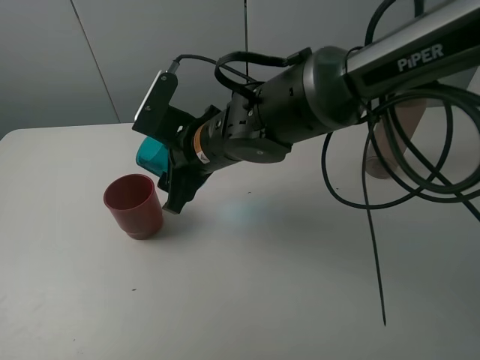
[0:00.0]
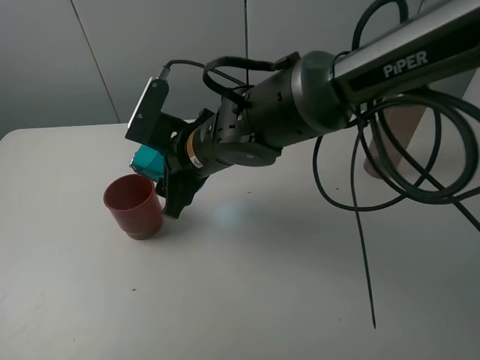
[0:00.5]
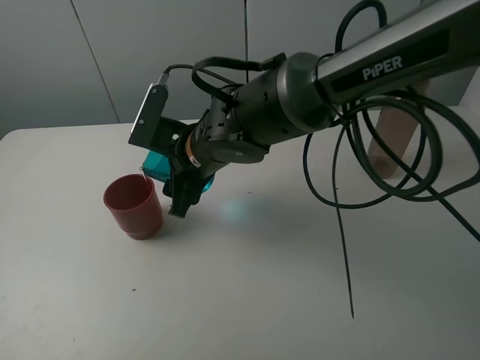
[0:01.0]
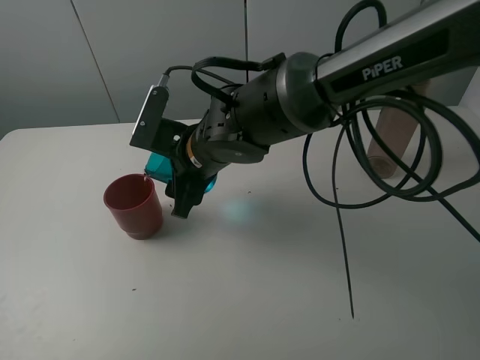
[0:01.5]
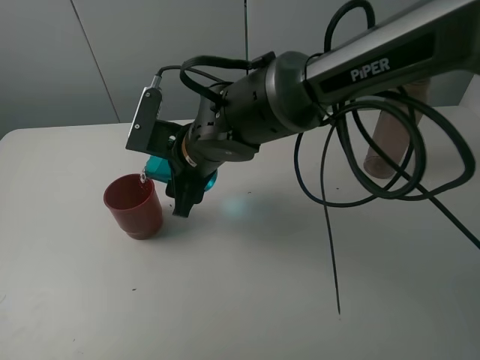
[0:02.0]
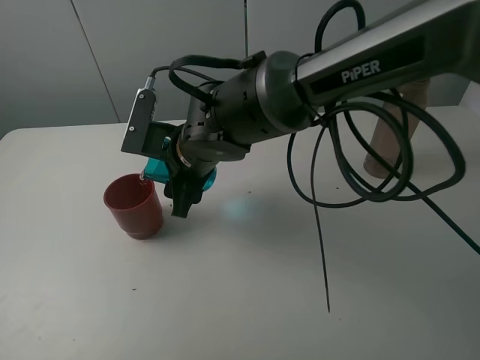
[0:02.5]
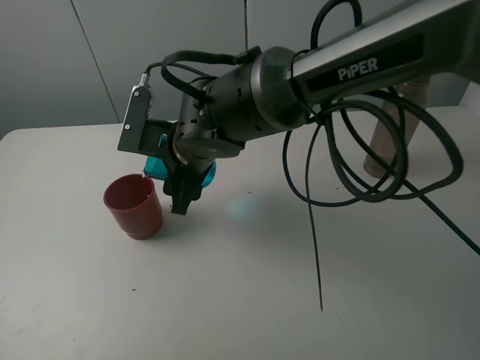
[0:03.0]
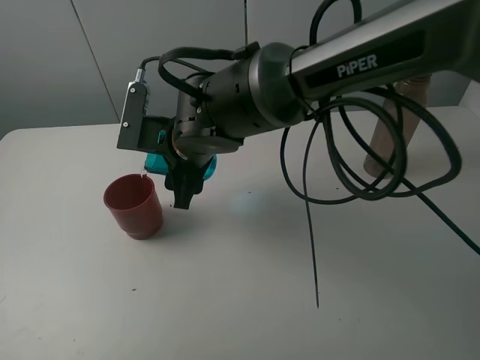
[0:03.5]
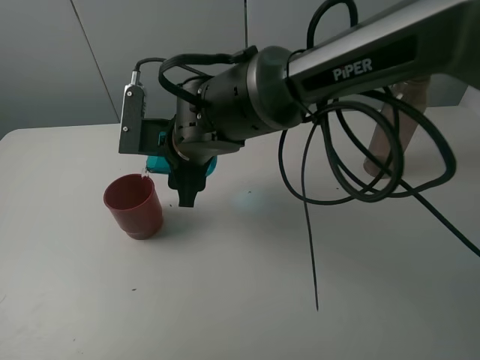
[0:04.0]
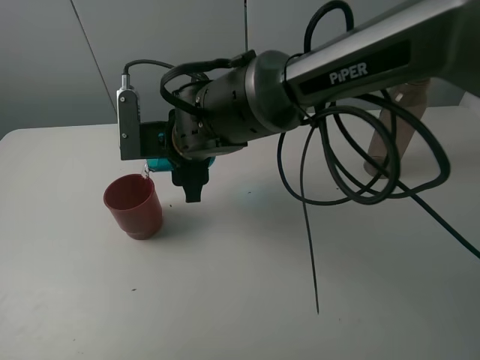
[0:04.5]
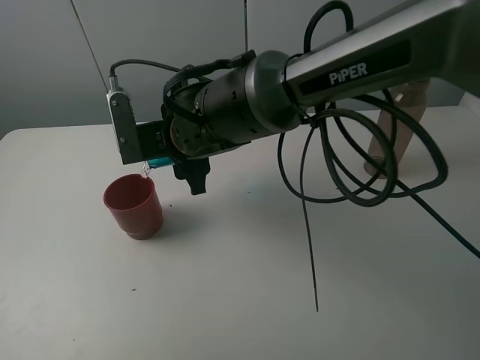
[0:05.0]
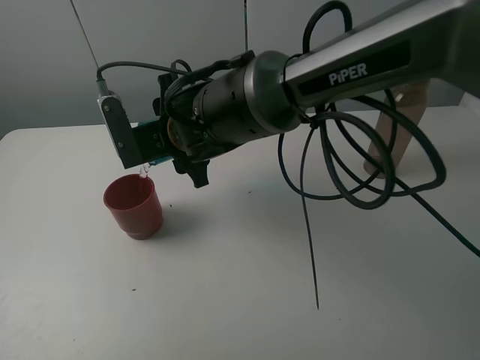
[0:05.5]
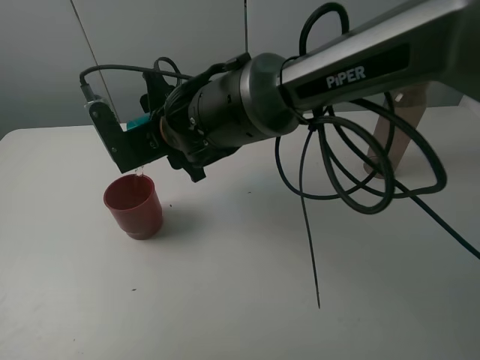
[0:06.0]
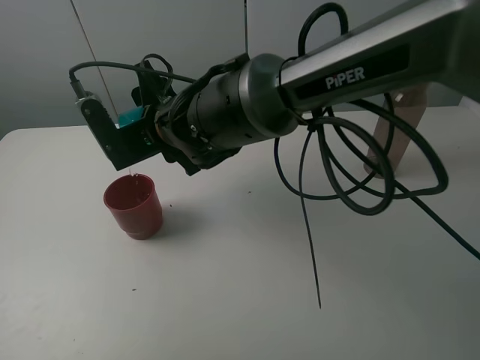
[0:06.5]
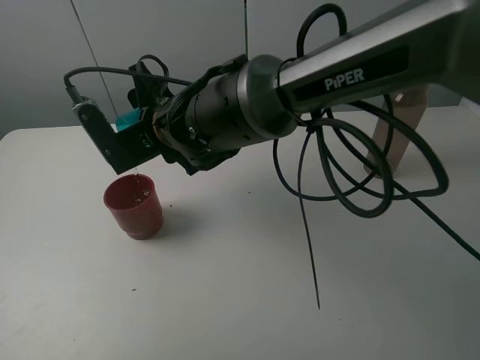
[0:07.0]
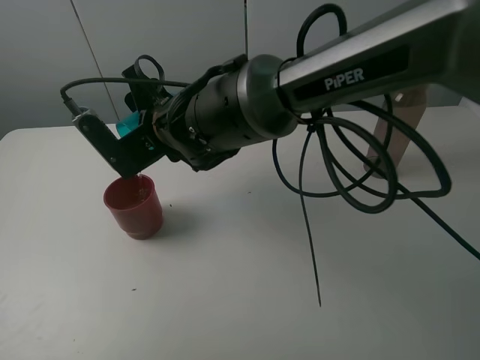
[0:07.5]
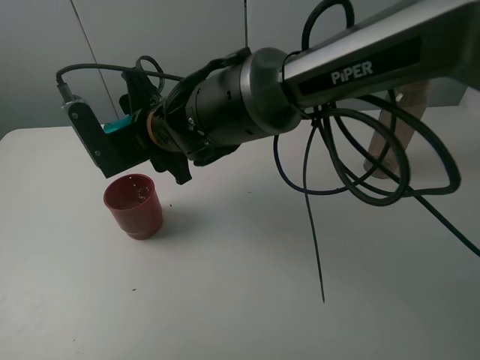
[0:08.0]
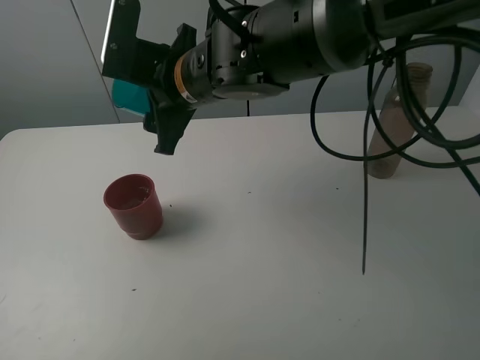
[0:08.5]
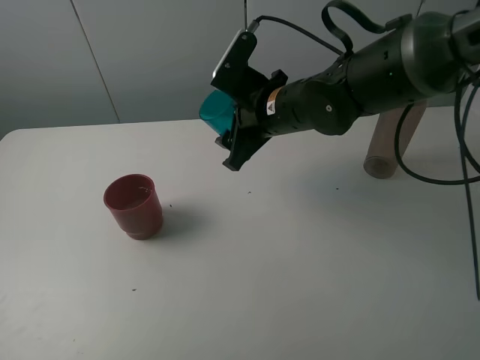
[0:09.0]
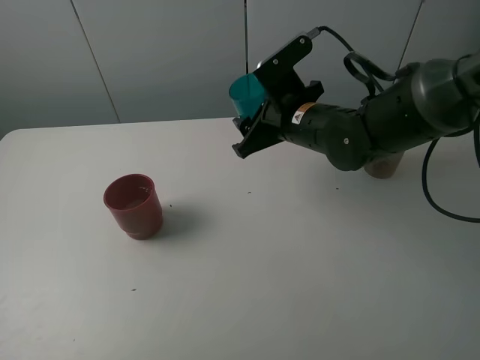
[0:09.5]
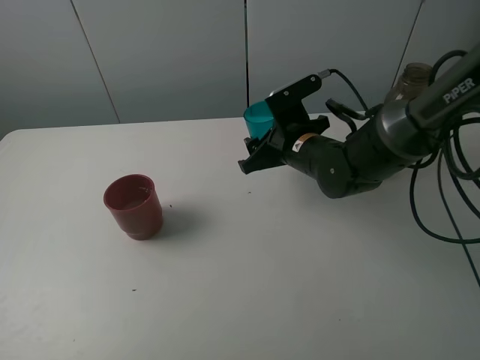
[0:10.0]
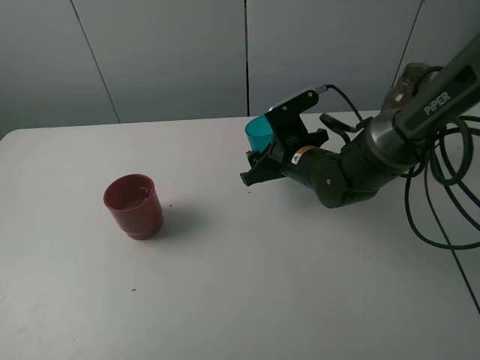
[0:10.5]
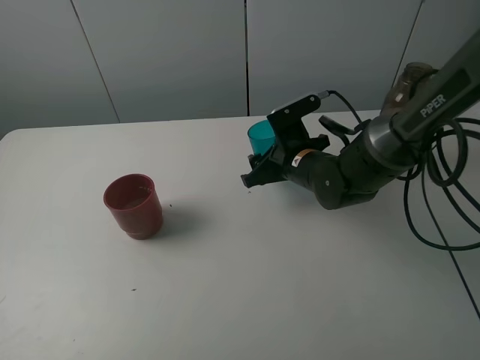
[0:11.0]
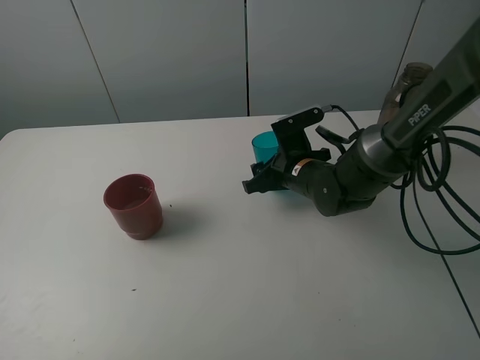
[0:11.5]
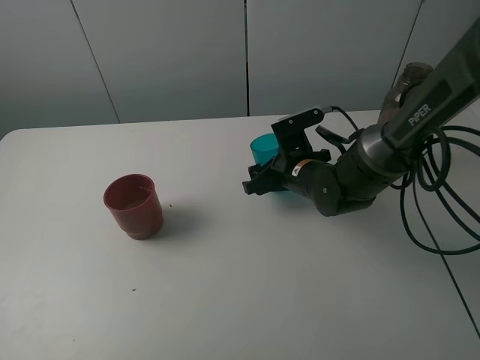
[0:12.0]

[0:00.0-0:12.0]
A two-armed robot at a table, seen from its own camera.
Task of the whole recording: pick up the bottle and pour water into the cup, then pick up the cup containing water and pour it into another cup.
Step, 0:00.0 to 0:08.0: Pour water from blue cup to red cup with the right gripper.
0:00.0 to 0:02.0: The grippers stay close to where they were, moving slightly.
0:02.0 to 0:04.0: The grippers move only a little.
0:06.0 to 0:08.0: The grippers make only small movements.
0:08.0 to 0:10.0: The right gripper moves to the right and downward, some 20 cm.
0:10.0 to 0:12.0: The right gripper opens.

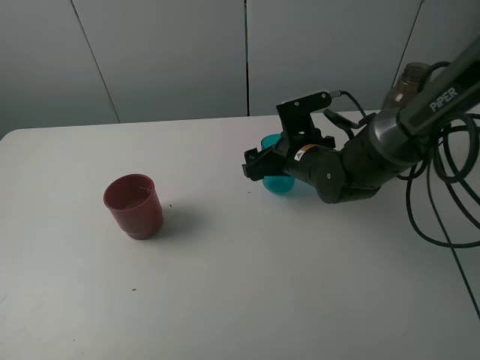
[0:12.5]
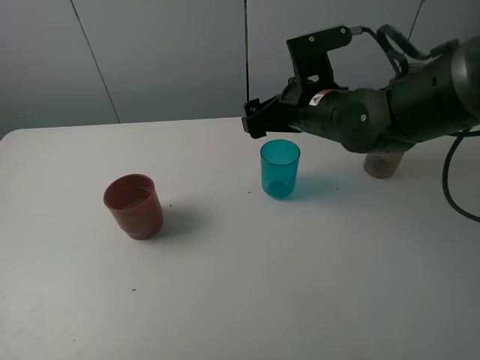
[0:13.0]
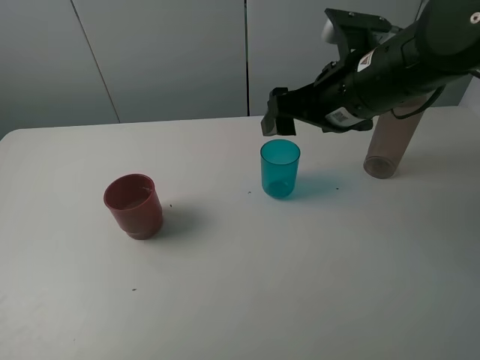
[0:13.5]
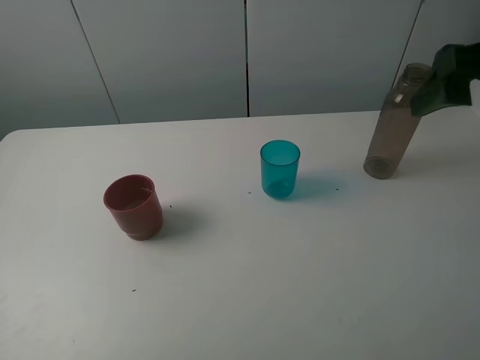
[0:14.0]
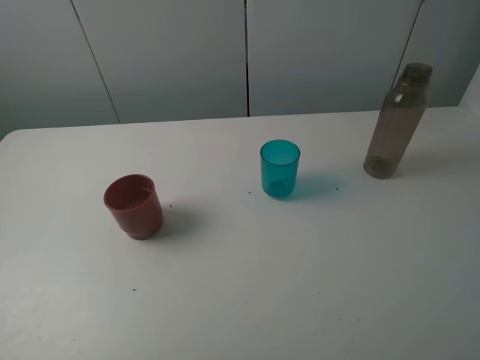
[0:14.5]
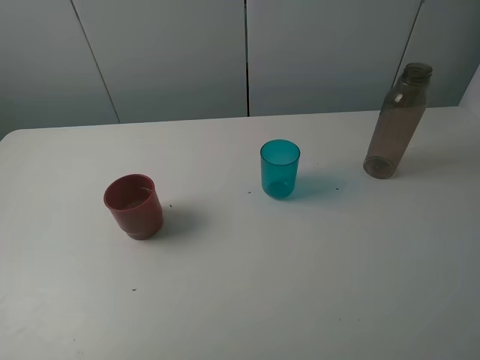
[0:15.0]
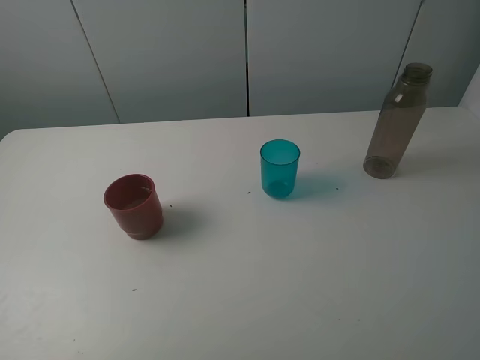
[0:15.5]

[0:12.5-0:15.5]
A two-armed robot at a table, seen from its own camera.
Task of the whole recording: pick up the bottle and pour water into the cup, then pick up the cup containing water and pour it into another cup.
0:12.5 to 0:14.0: The right gripper travels upward, to the right and backward by roughly 30 cm.
0:14.0 to 0:15.5: The right gripper shifts some 20 cm backward.
